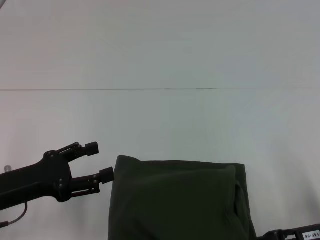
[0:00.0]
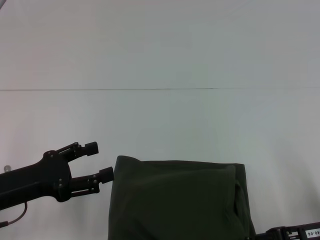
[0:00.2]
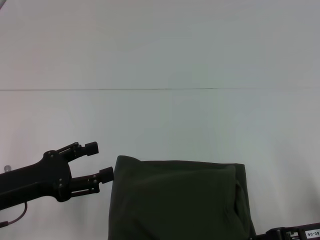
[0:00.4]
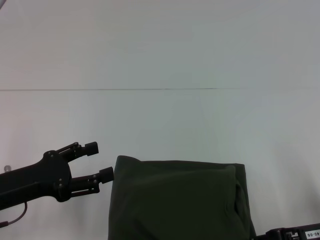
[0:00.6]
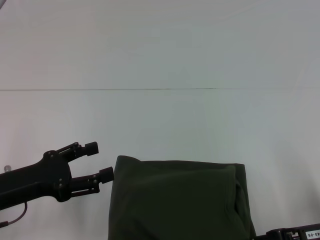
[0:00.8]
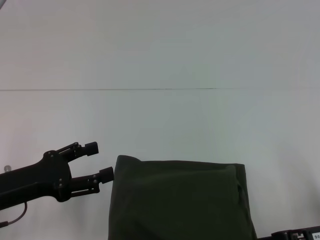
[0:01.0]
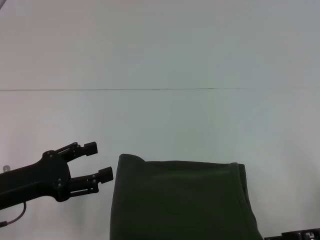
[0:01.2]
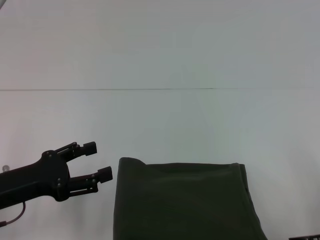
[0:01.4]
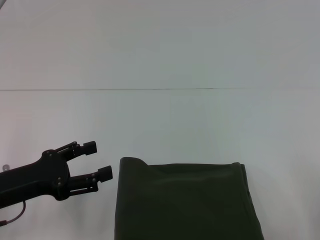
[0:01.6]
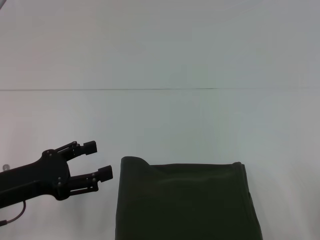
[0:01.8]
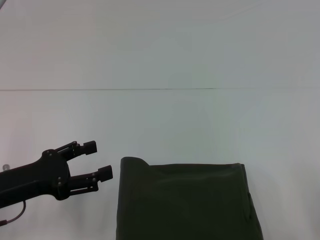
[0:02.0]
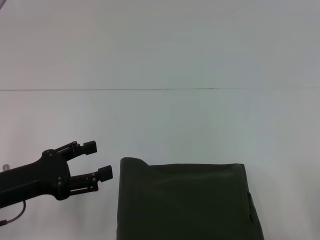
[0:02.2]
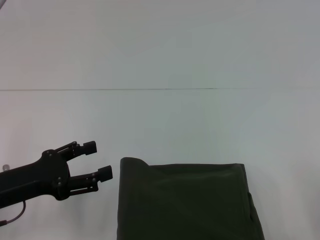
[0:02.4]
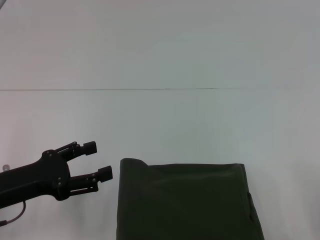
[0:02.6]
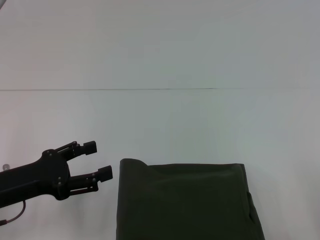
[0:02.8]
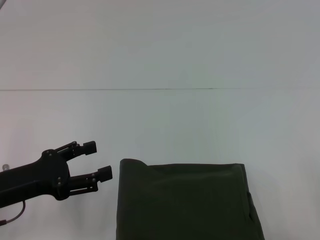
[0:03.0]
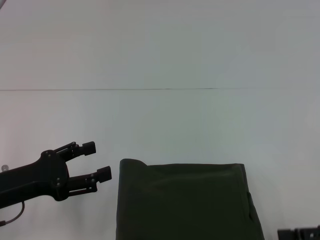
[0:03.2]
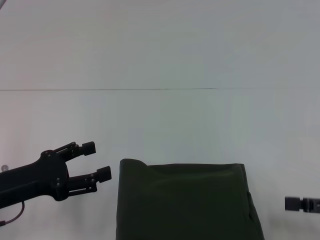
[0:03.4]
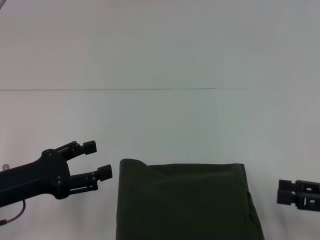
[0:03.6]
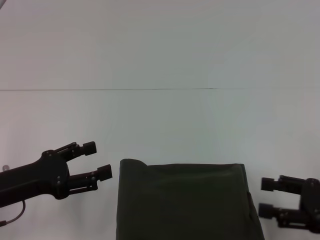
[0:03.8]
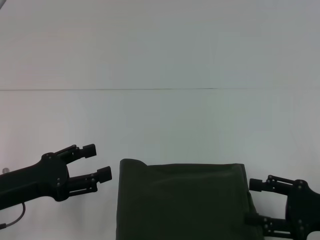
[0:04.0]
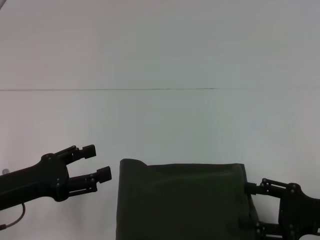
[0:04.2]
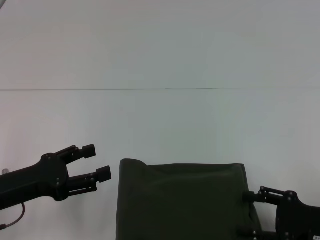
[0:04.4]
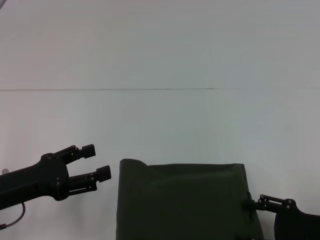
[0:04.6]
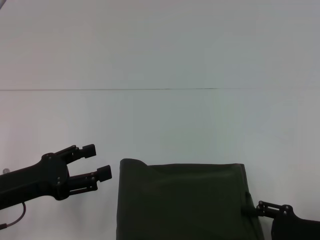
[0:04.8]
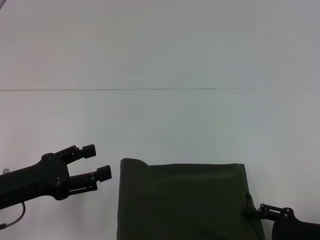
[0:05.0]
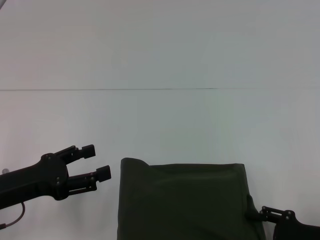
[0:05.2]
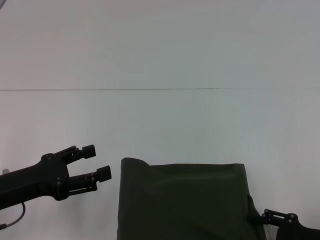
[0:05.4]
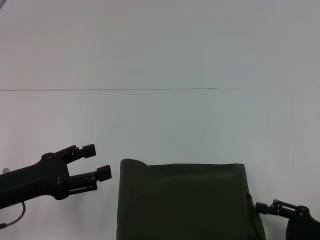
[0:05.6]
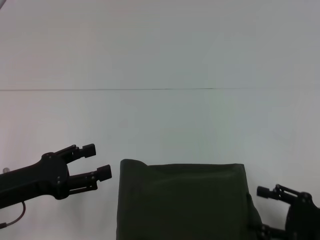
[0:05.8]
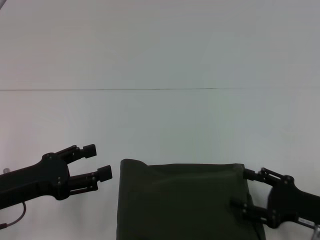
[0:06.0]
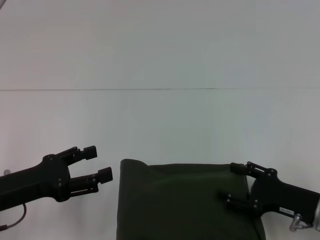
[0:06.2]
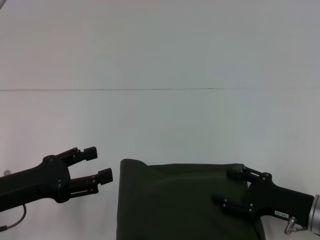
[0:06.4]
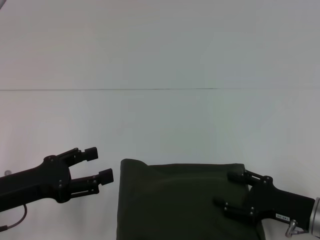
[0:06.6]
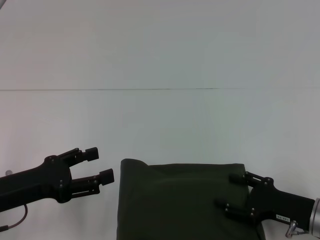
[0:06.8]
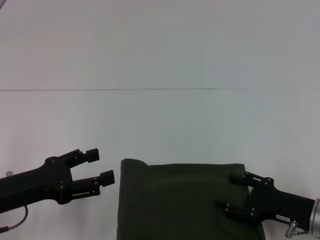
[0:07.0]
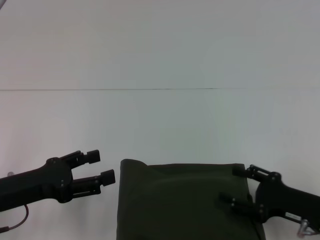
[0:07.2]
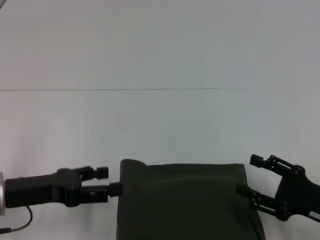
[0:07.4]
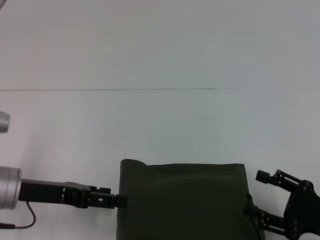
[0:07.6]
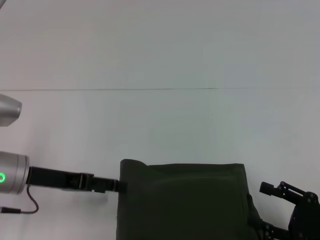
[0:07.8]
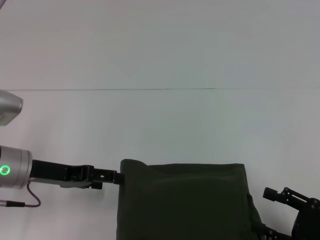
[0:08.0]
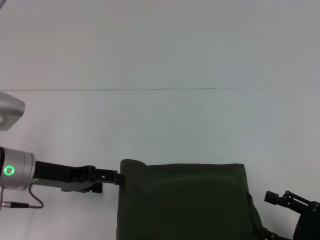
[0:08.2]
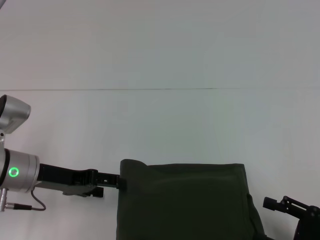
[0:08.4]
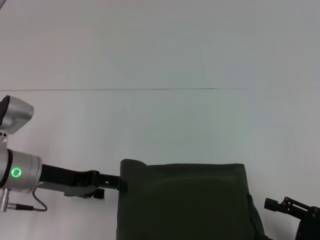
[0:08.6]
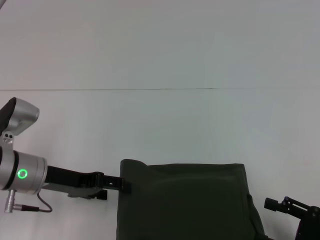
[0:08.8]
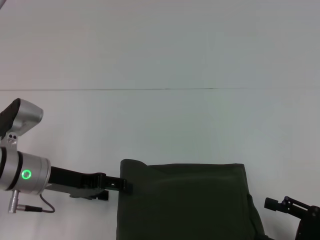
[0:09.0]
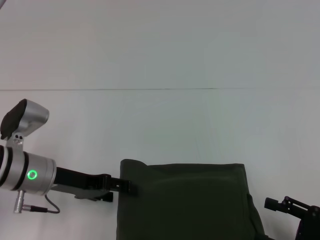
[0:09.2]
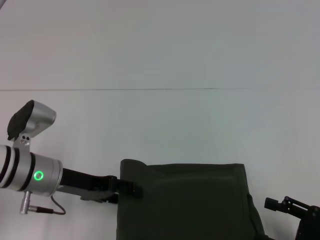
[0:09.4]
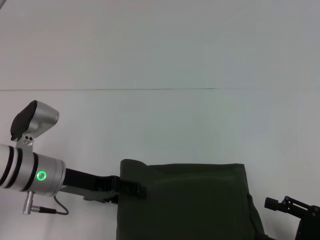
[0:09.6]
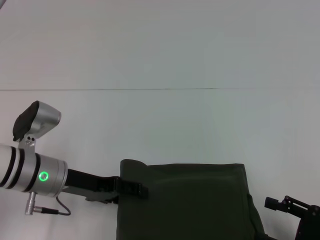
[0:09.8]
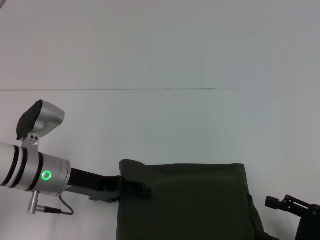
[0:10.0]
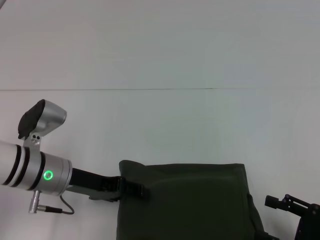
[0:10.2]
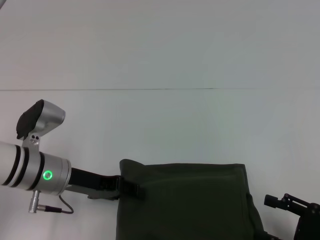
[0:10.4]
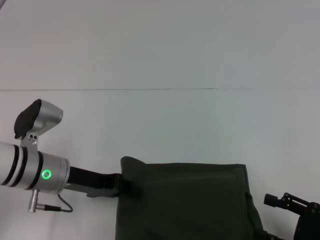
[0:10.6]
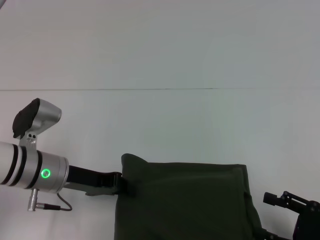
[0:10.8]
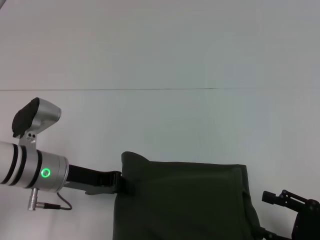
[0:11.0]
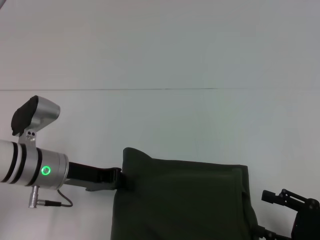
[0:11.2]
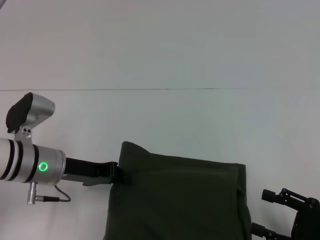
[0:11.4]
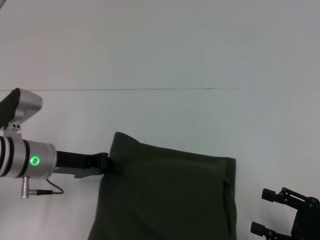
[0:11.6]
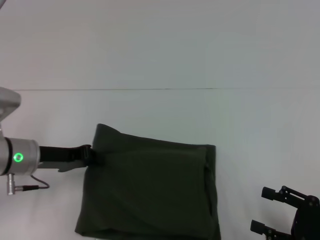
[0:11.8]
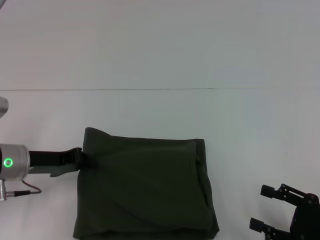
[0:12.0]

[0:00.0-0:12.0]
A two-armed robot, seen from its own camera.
0:00.0 to 0:01.6: The right gripper closes its fingers.
0:03.0 to 0:04.4: The right gripper opens its fingers.
0:04.4 to 0:06.0: The grippers stay close to where they were, moving slightly.
0:09.0 to 0:10.4: The grippers make only small movements.
0:10.4 to 0:12.0: The left gripper is displaced to the left by roughly 5 cm, and closes.

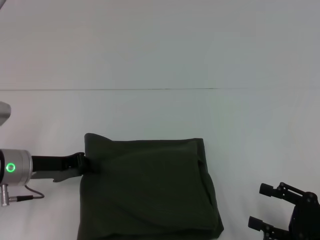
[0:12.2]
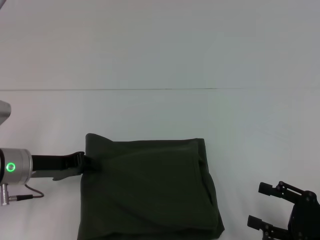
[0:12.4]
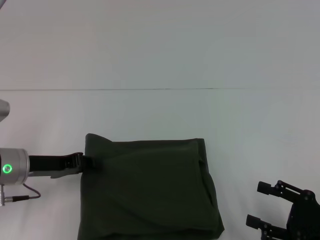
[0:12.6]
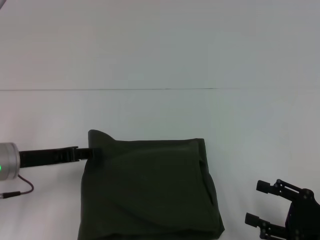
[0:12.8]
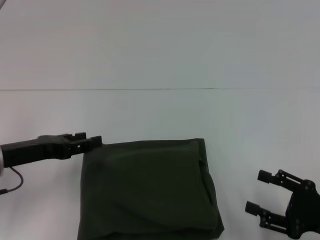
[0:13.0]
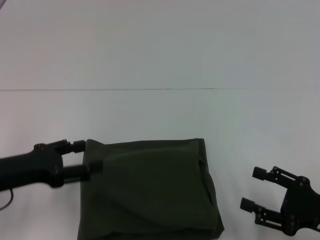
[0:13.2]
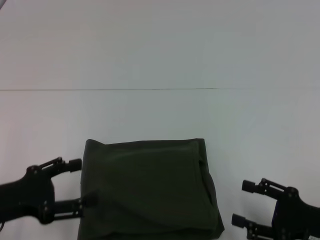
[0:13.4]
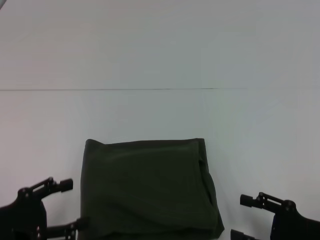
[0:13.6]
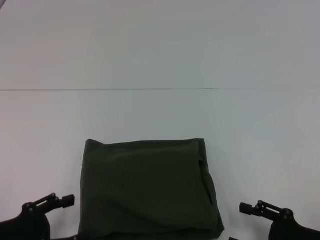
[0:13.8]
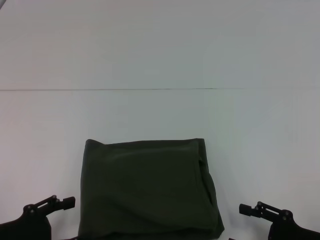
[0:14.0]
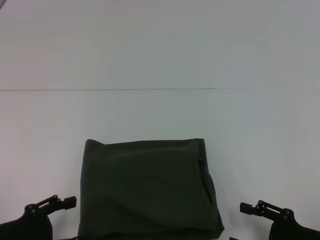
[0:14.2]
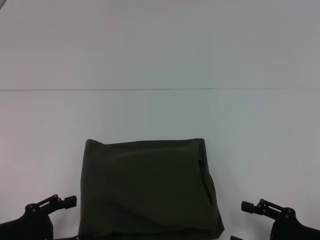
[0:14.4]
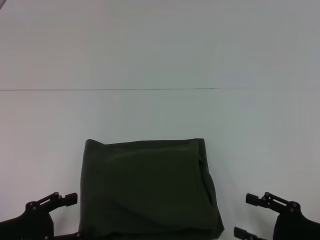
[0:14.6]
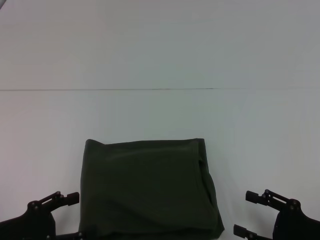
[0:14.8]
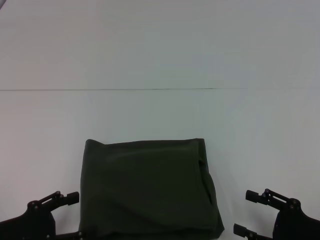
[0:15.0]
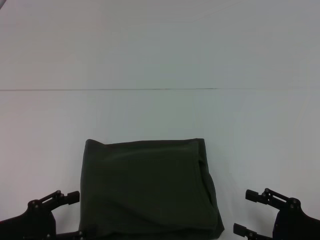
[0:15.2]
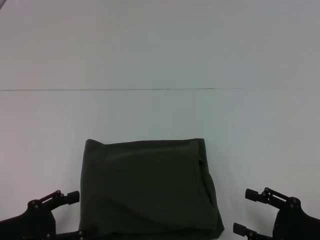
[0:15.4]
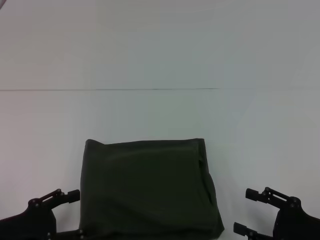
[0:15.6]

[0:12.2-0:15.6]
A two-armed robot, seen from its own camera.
0:12.2 to 0:13.8: The left gripper goes roughly 15 cm backward, and opens up.
0:13.8 to 0:15.6: Neither gripper changes place.

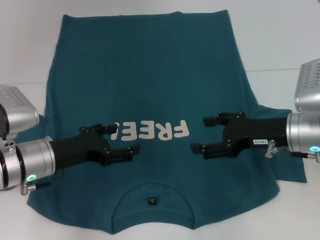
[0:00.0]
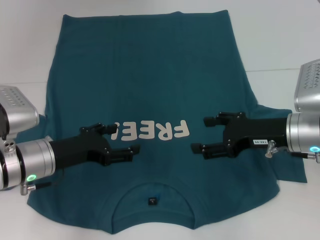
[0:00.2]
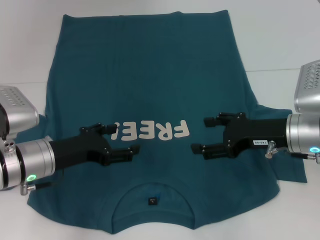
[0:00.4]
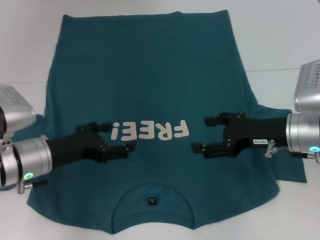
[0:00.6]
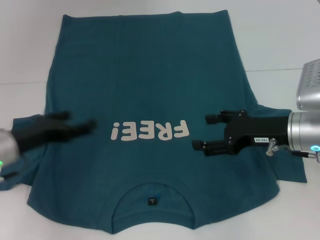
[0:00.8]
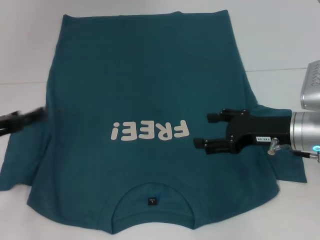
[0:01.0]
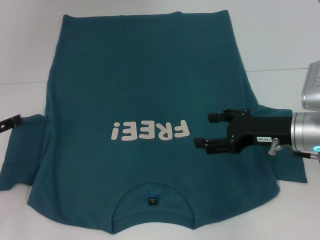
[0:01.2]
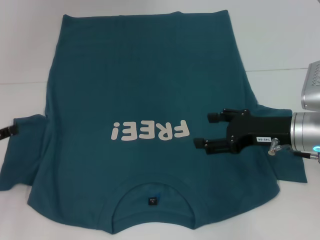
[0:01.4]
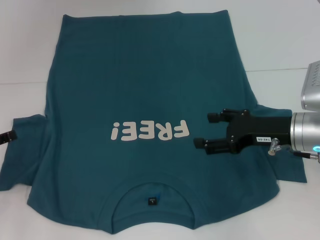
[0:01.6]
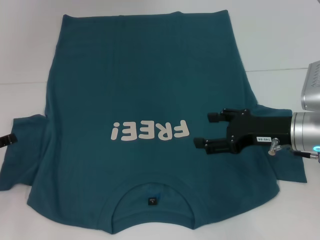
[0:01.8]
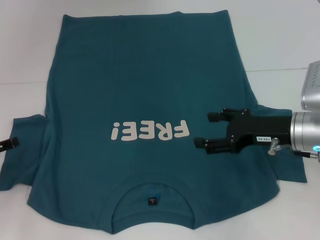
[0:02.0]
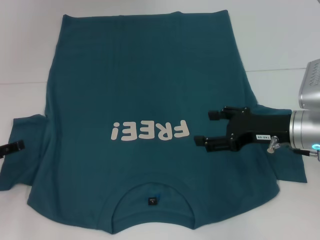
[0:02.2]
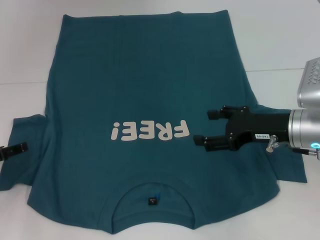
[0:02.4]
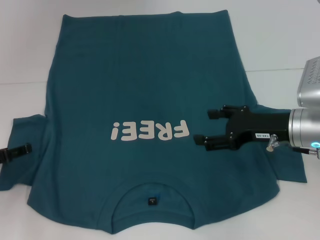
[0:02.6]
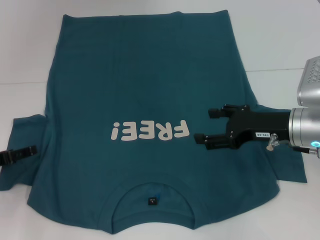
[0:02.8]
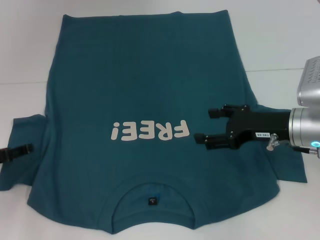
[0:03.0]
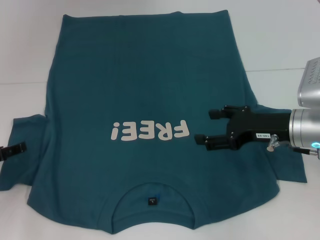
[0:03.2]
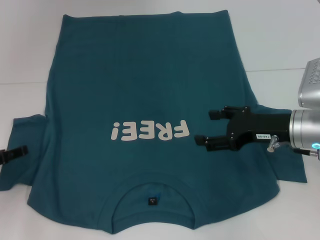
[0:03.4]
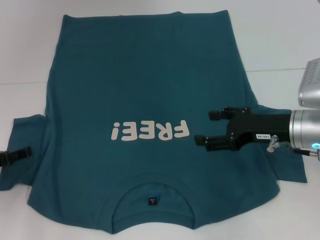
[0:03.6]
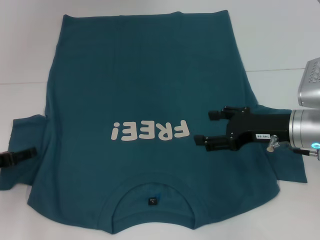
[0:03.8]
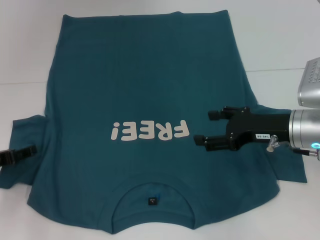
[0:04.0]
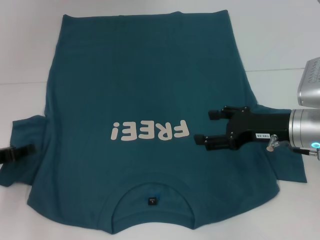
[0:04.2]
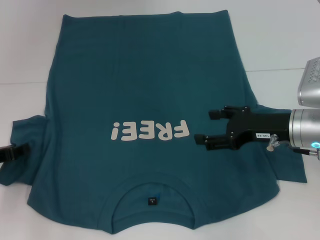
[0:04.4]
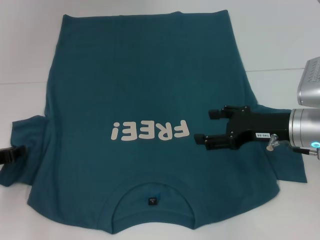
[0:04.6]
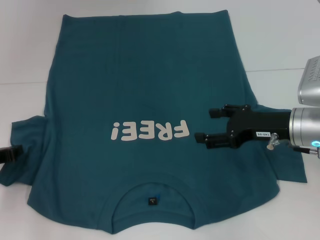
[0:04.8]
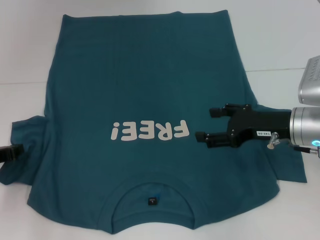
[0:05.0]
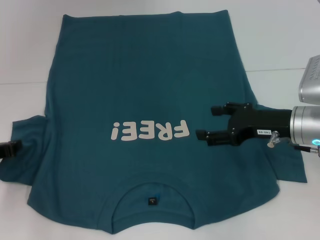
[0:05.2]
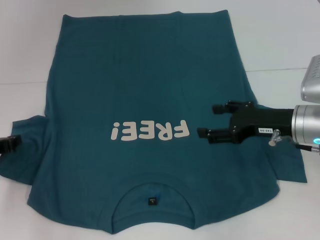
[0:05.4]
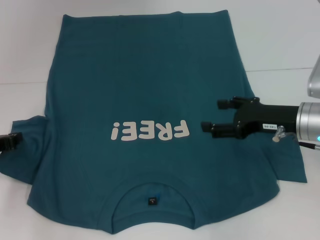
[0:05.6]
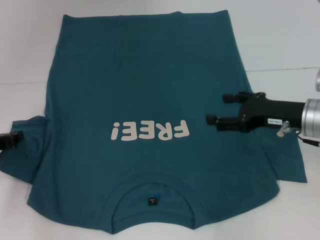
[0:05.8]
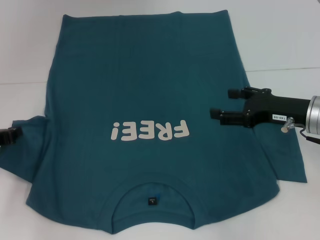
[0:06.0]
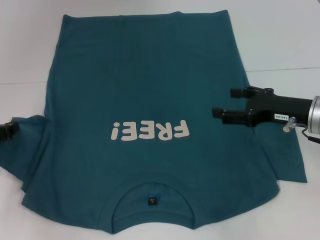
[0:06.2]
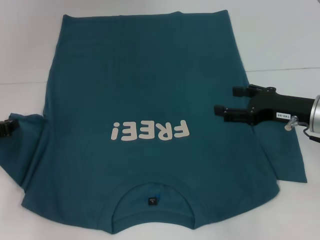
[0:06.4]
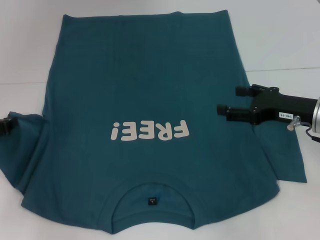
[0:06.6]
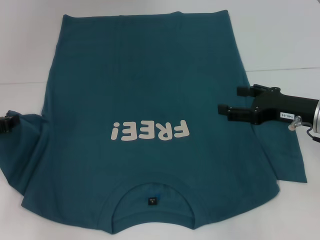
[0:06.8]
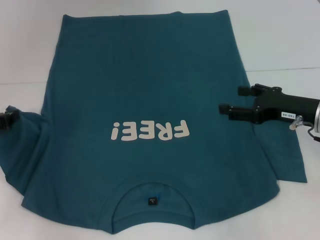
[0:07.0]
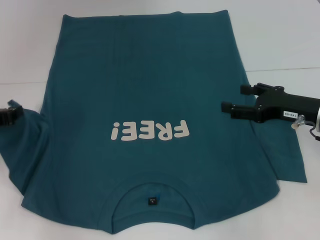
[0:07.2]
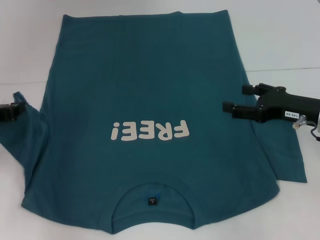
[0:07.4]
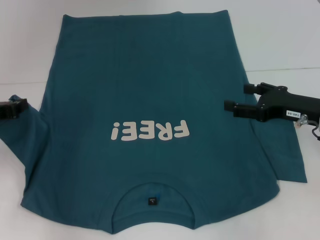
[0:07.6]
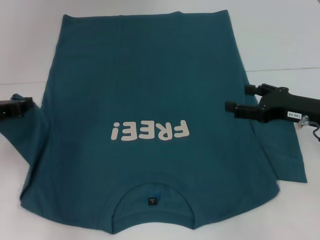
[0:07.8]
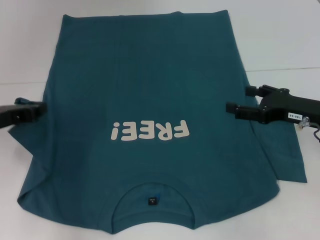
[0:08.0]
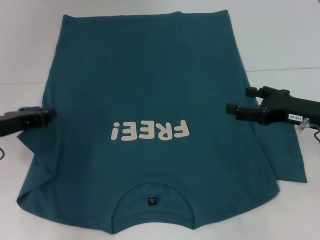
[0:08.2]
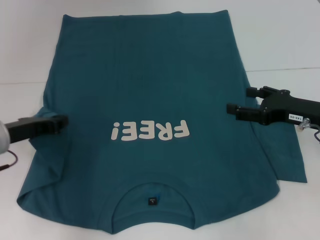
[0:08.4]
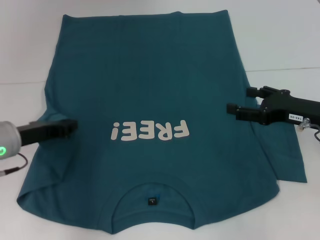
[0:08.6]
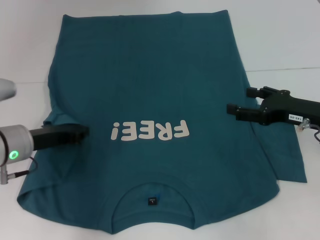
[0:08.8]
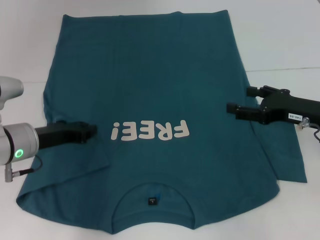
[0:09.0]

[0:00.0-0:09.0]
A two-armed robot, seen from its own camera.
0:00.0 to 0:01.6: The left gripper travels to the left by roughly 15 cm.
0:01.6 to 0:03.0: The grippers stay close to where they were, moving slightly.
0:04.4 to 0:06.0: The left gripper closes.
0:06.0 to 0:07.6: The grippers make only small movements.
0:07.6 to 0:09.0: The left gripper heads to the right, covering some 10 cm.
